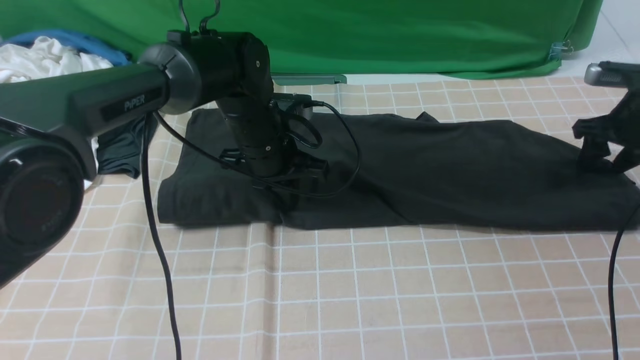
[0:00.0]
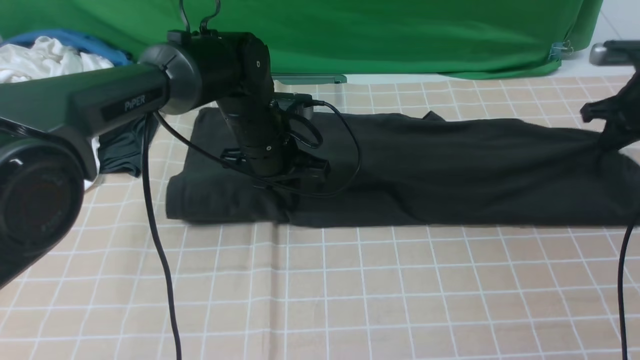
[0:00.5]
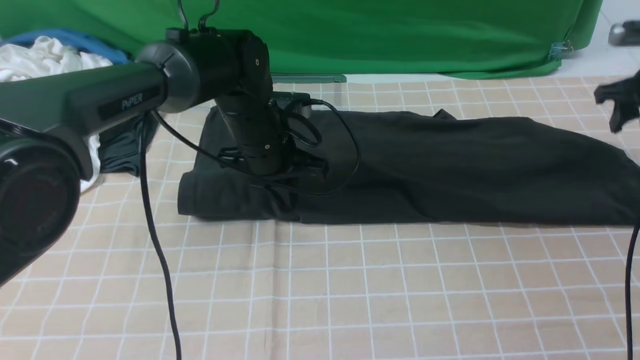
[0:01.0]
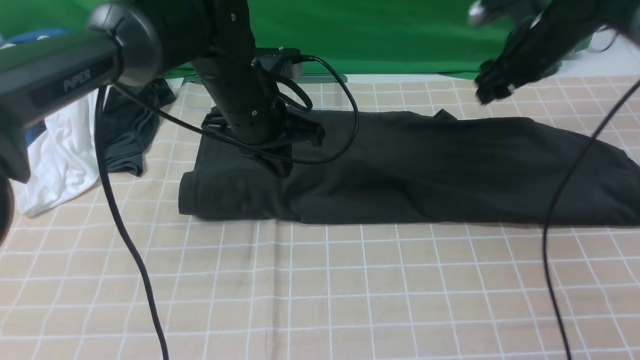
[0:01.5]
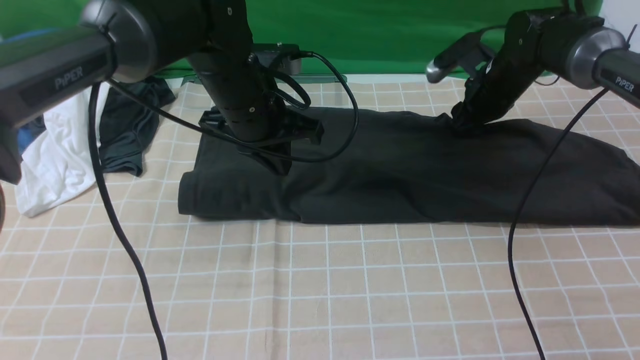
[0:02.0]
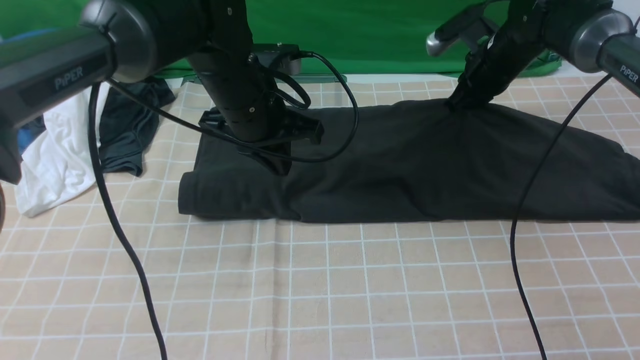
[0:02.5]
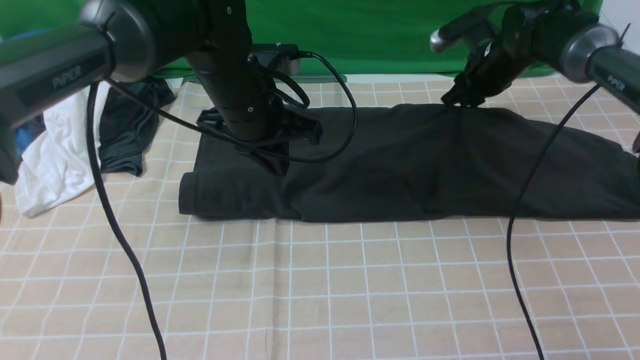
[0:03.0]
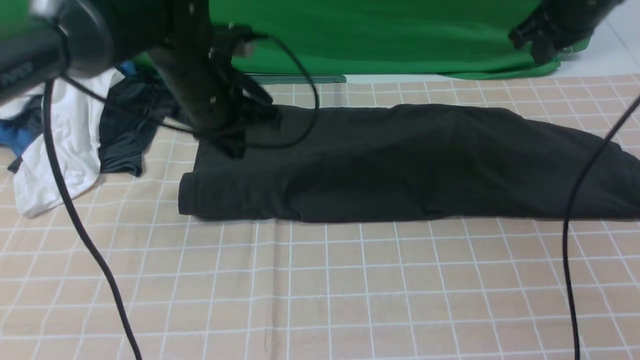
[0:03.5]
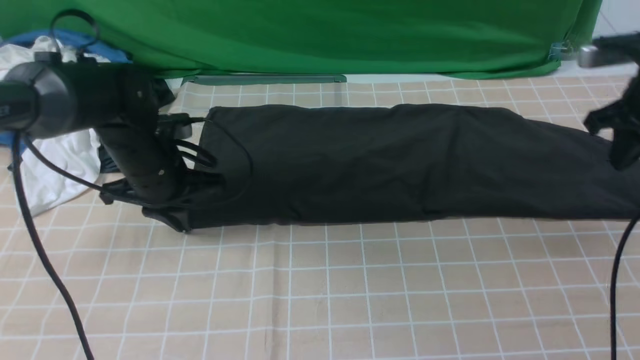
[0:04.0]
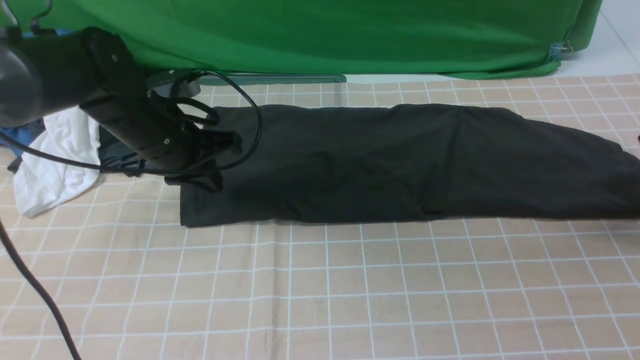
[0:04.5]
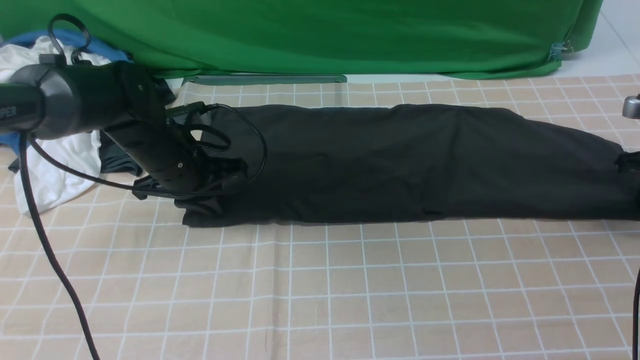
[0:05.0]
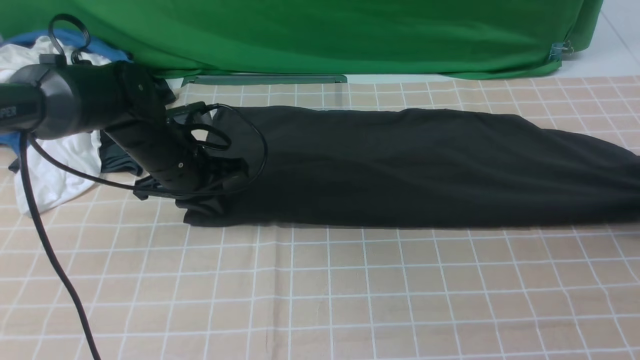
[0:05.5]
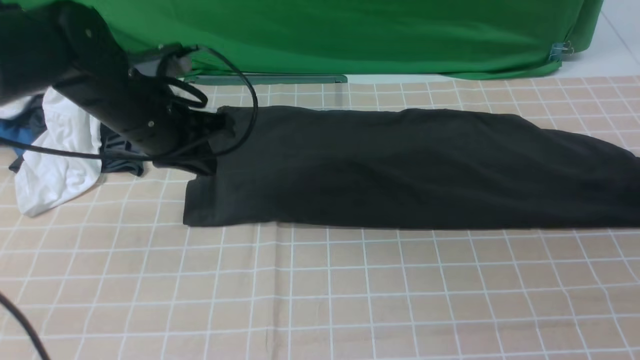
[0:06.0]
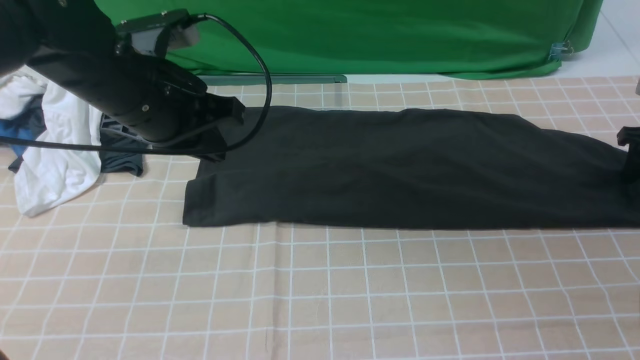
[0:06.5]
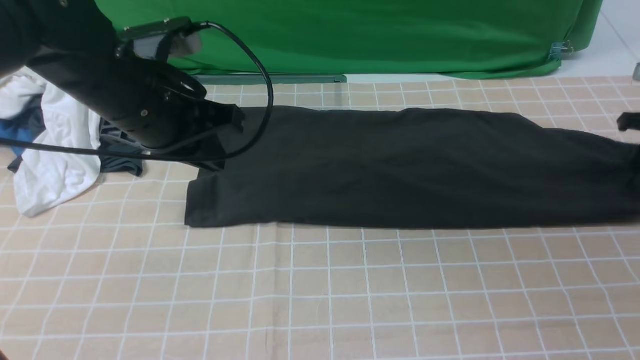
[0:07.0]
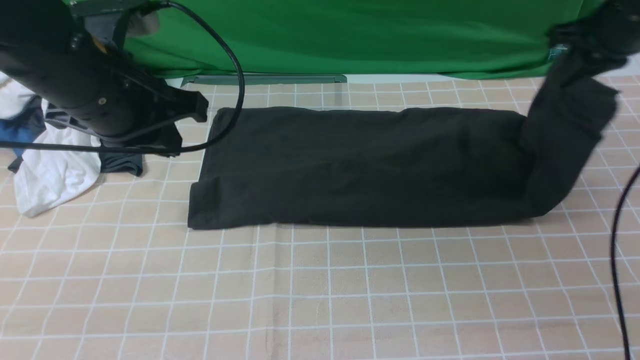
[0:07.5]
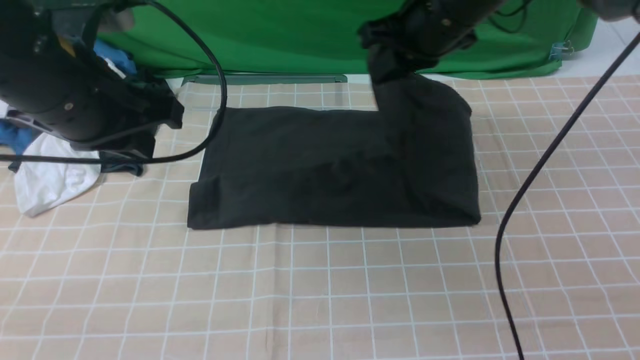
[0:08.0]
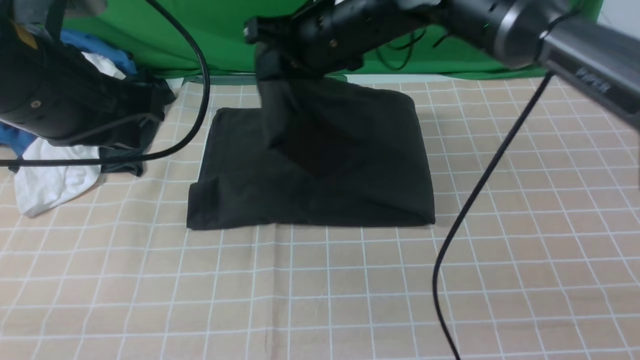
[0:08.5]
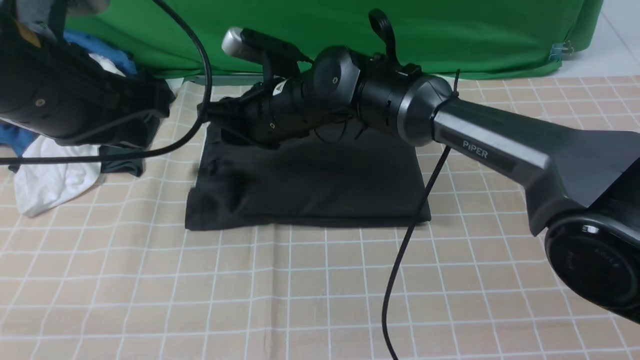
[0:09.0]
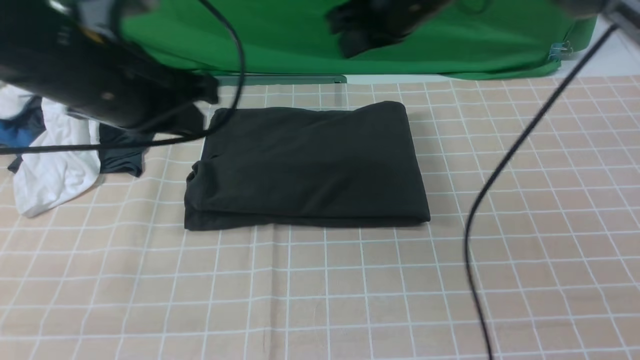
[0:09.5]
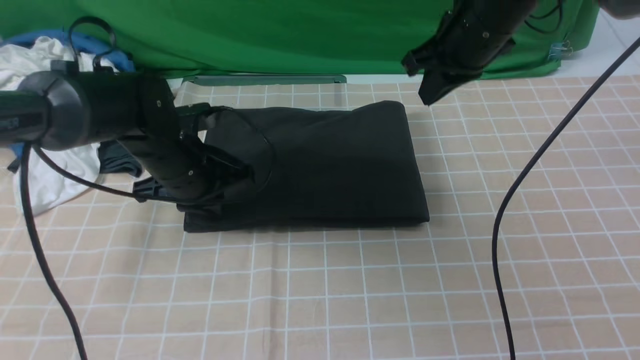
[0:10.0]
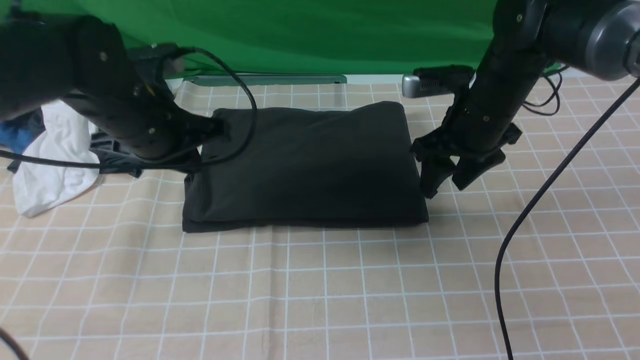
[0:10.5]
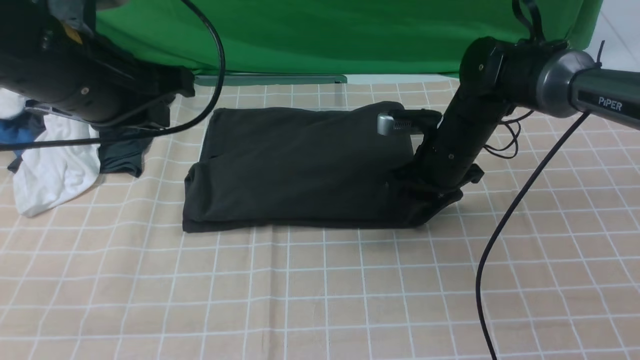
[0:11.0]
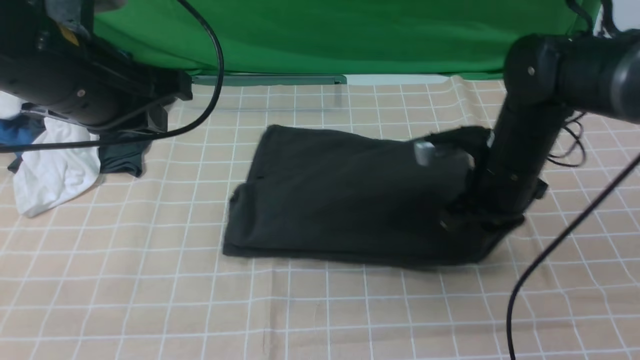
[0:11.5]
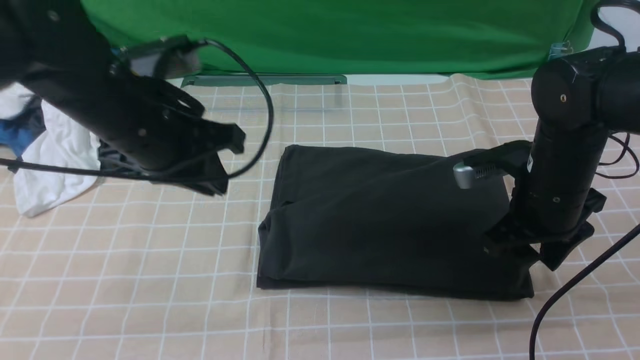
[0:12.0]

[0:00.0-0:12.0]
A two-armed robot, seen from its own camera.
Step, 0:00.0 to 0:06.5: use the right arm to clamp the right edge of the fabric.
Step, 0:07.0 to 0:09.0: use the right arm to drag the right edge of the fabric to the left and folds it over the left edge.
0:00.0 to 0:02.0: The left gripper is displaced upward by some 5 cm. Meanwhile the right gripper is displaced to the left by some 15 cm, and closes, then reopens.
0:02.0 to 0:04.0: The left gripper goes about 15 cm to the left and downward; the right gripper moves to the right, backward and upward, approximately 20 cm.
0:04.0 to 0:06.0: The right gripper moves to the right, approximately 10 cm, and opens up. The left gripper is displaced upward by some 5 cm.
0:06.0 to 0:08.0: The right gripper shifts some 35 cm to the left, and closes. Meanwhile the left gripper goes about 10 cm upward and backward.
0:08.0 to 0:10.0: The left gripper travels downward and forward by roughly 20 cm; the right gripper moves approximately 15 cm to the left and comes back, and opens, then closes again.
0:10.0 to 0:12.0: The right gripper travels backward and downward by some 15 cm, and opens its fingers; the left gripper goes approximately 10 cm upward and backward.

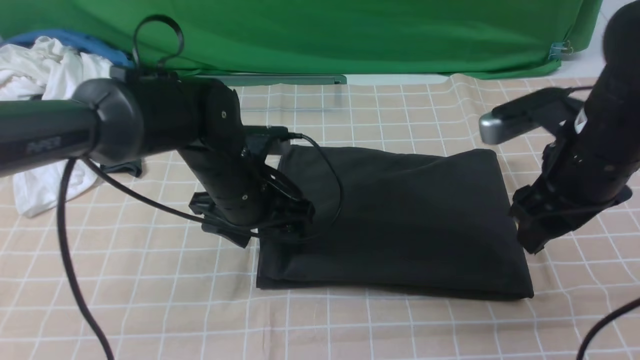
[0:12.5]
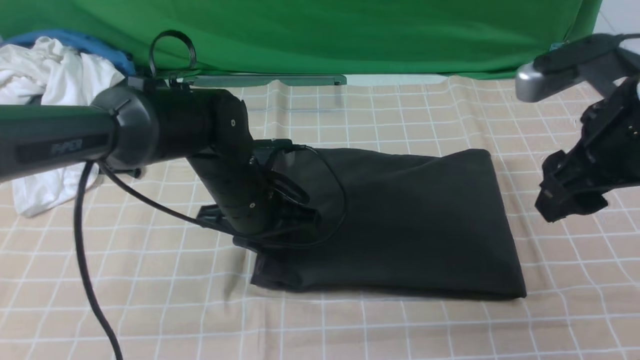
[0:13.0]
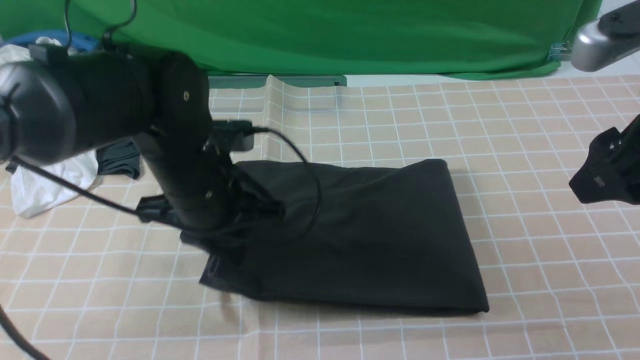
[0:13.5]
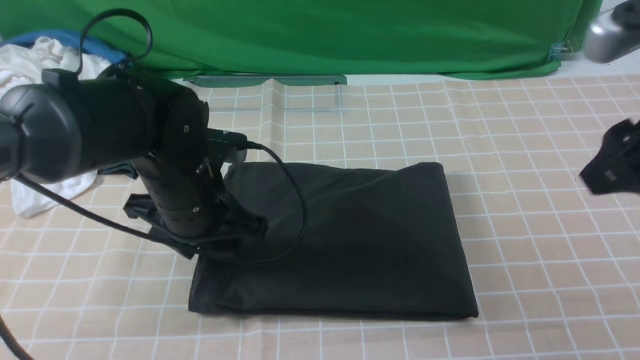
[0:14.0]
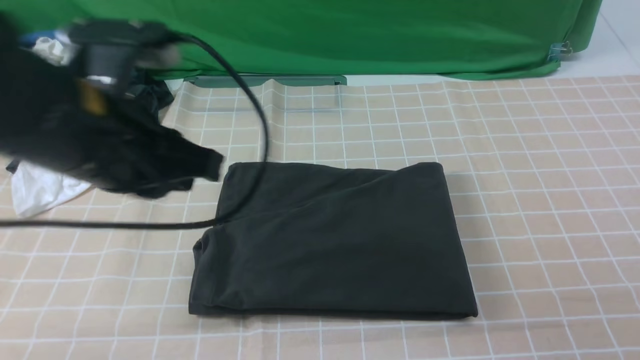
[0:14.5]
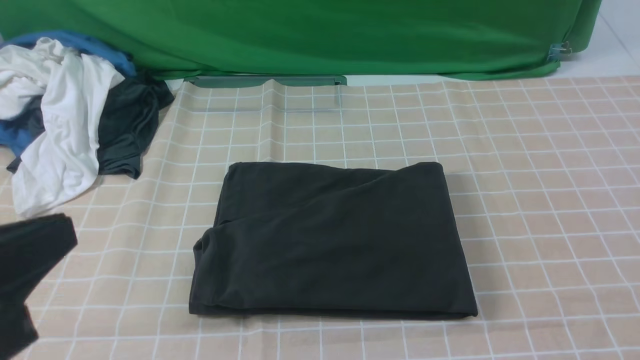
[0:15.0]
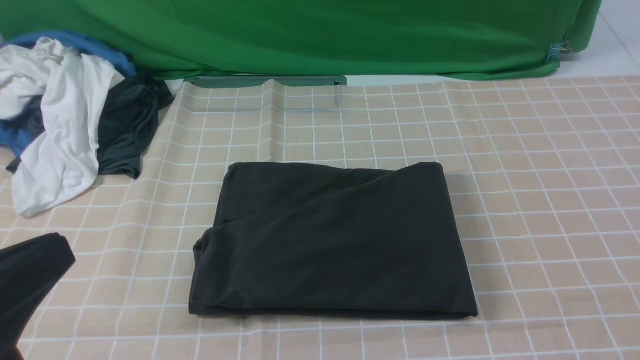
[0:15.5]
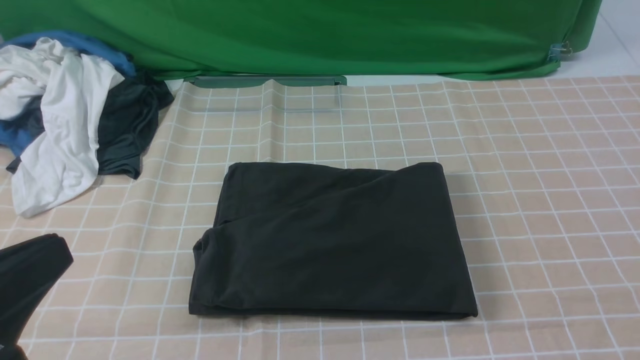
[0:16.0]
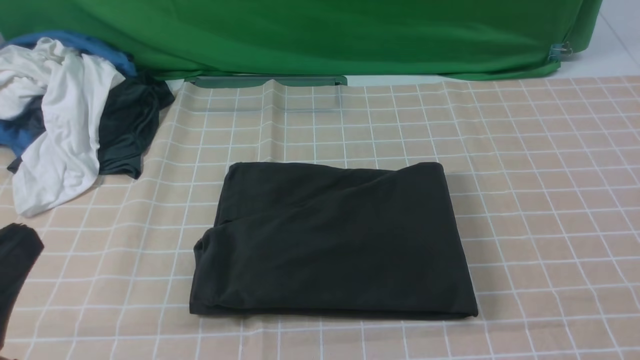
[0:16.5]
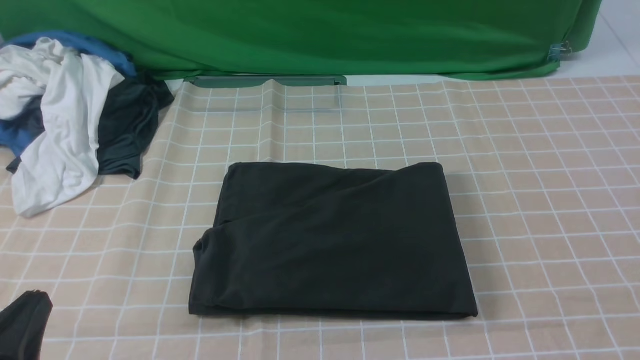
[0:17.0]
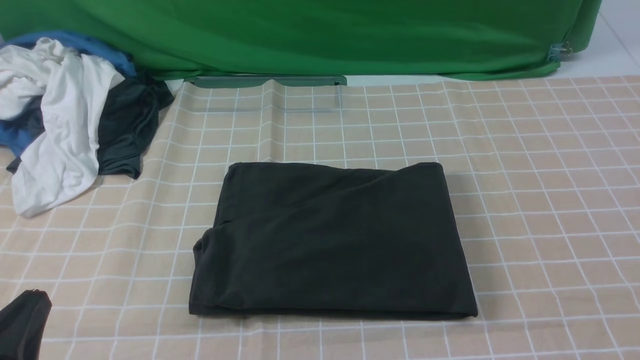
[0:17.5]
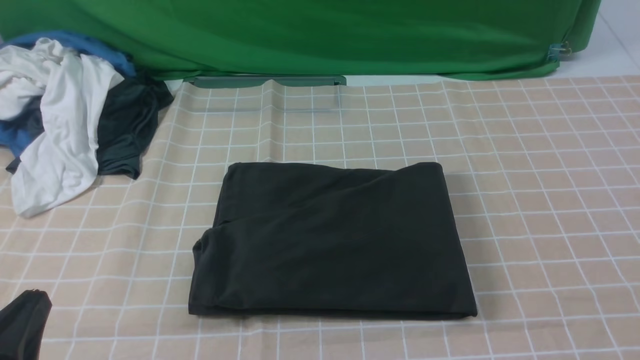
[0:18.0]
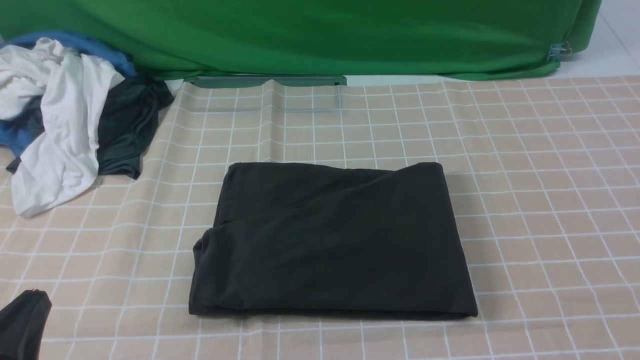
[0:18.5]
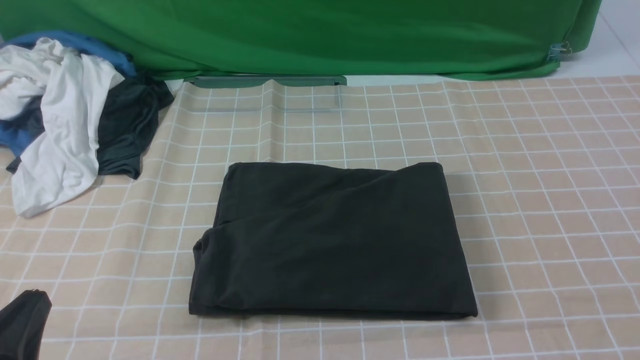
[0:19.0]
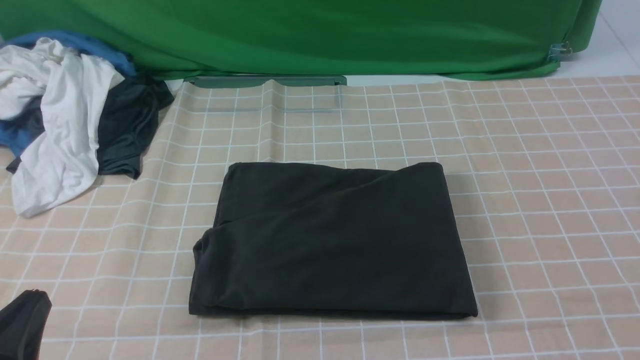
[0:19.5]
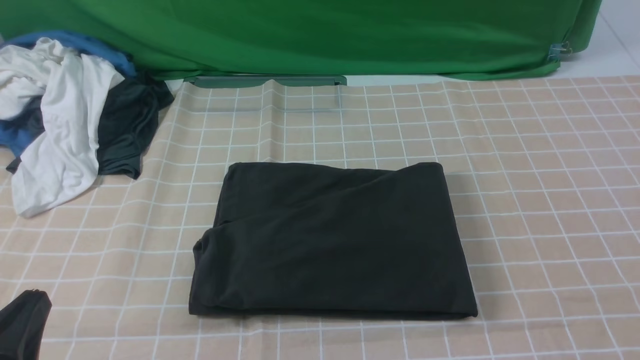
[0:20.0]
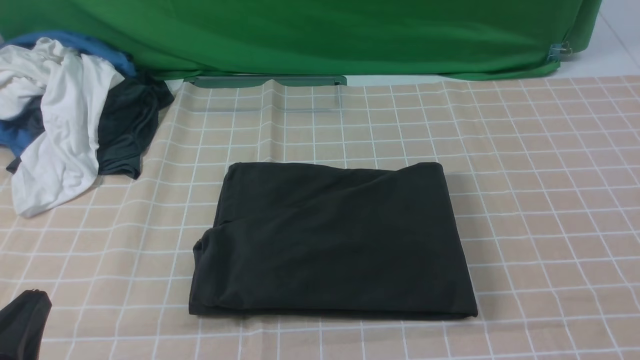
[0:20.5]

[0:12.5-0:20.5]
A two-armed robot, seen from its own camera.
0:12.5 to 0:14.5: The left gripper travels upward, backward and to the left by approximately 20 cm, and closes its fingers, while the right gripper is displaced backward and upward by approximately 25 cm, and closes.
0:14.5 to 0:16.5: The right gripper shifts about 15 cm backward and downward, while the left gripper is displaced backward, to the left and downward by roughly 20 cm.
0:16.5 to 0:18.5: The left gripper goes about 10 cm downward.
